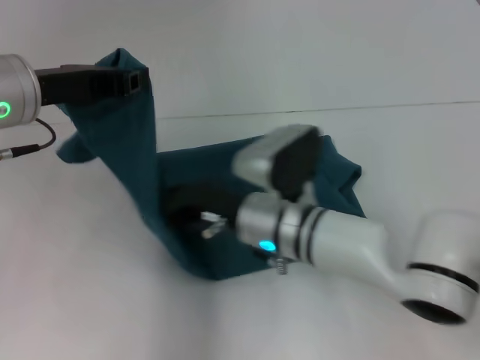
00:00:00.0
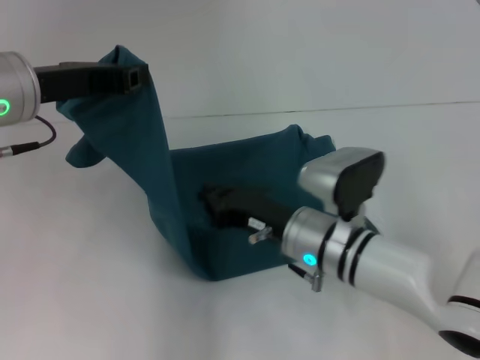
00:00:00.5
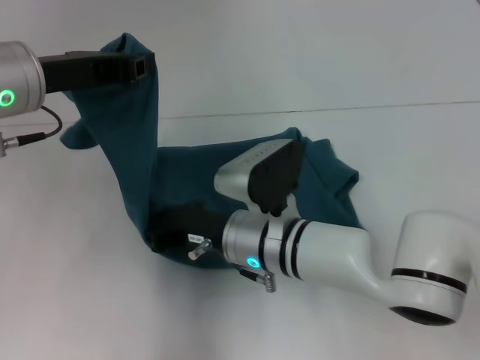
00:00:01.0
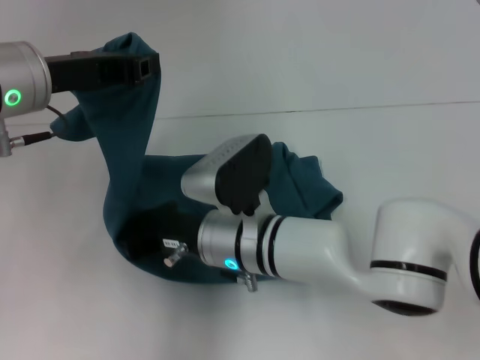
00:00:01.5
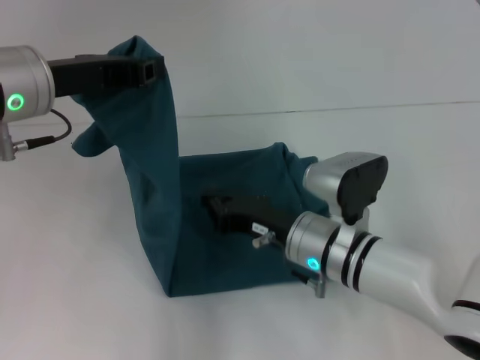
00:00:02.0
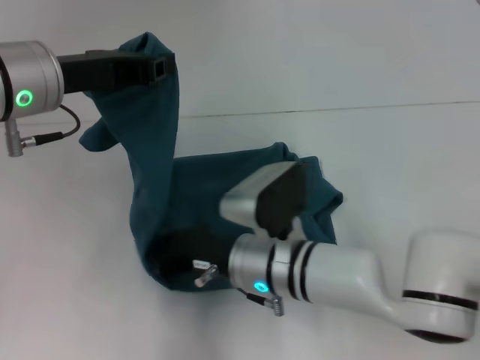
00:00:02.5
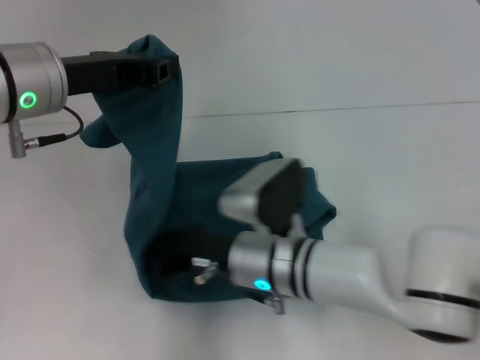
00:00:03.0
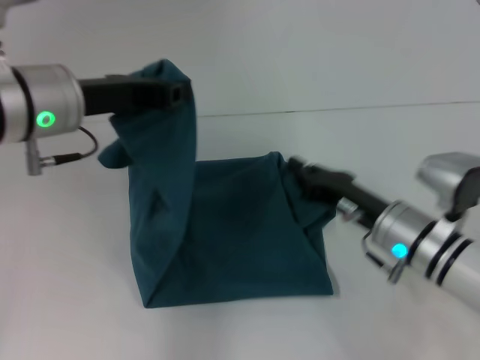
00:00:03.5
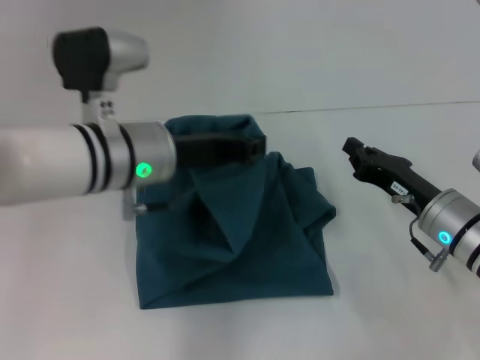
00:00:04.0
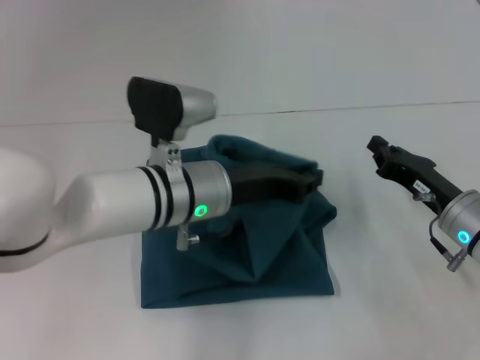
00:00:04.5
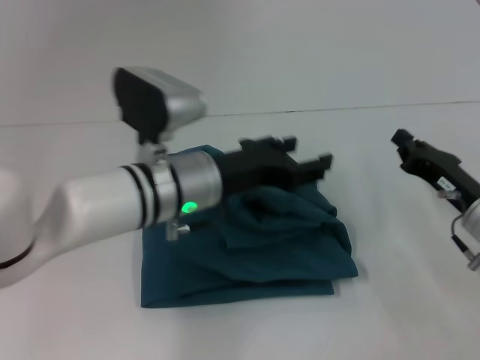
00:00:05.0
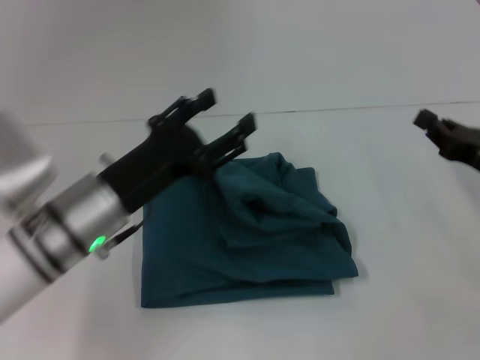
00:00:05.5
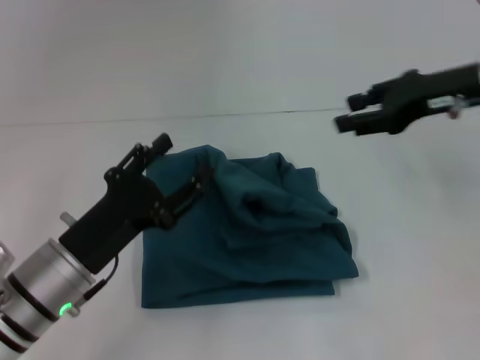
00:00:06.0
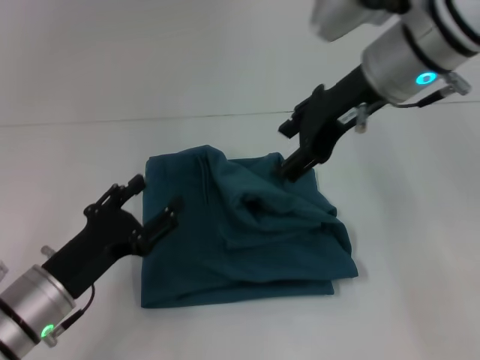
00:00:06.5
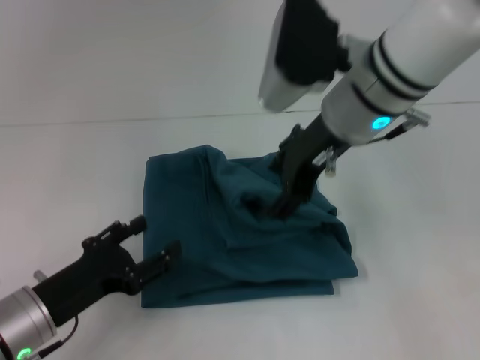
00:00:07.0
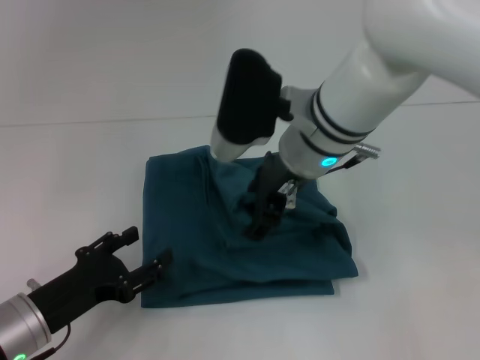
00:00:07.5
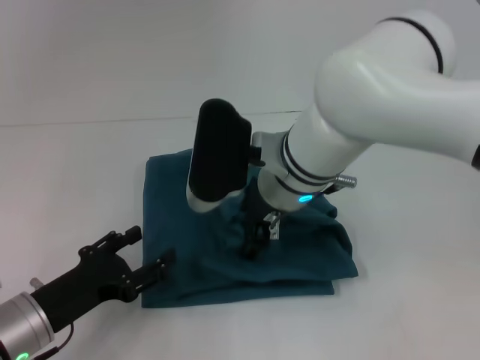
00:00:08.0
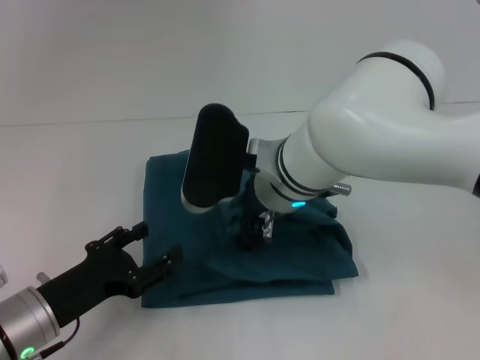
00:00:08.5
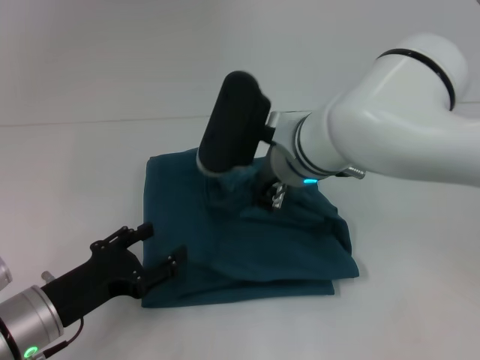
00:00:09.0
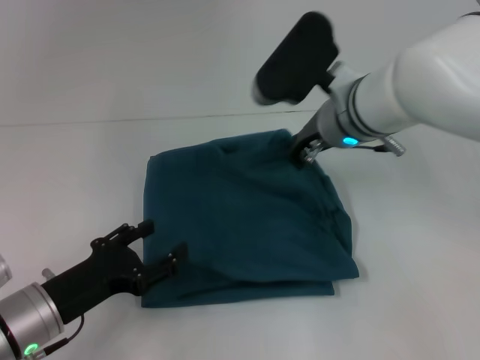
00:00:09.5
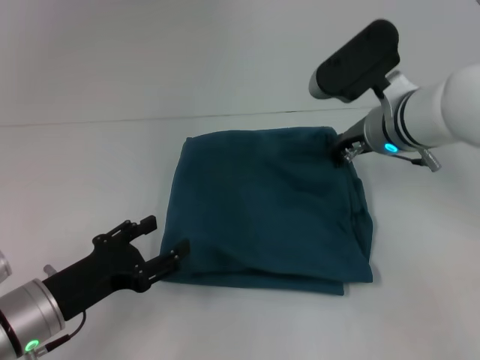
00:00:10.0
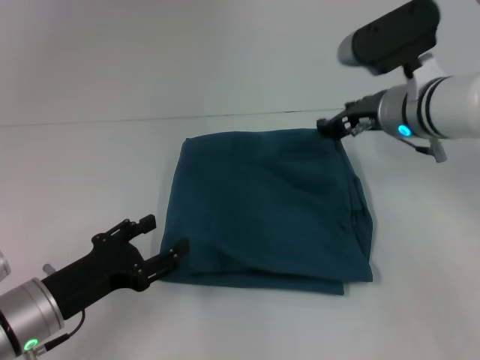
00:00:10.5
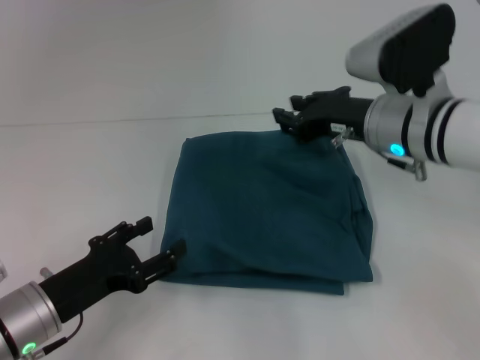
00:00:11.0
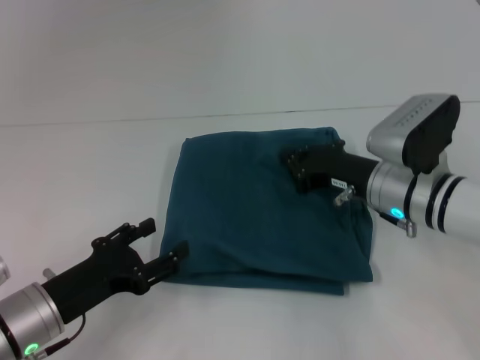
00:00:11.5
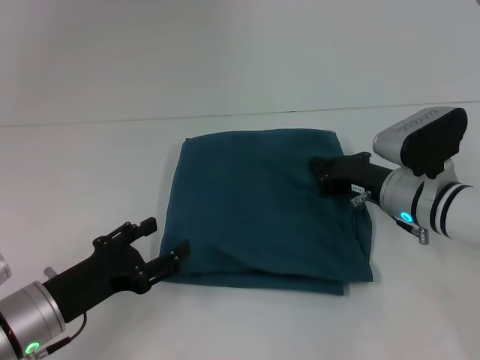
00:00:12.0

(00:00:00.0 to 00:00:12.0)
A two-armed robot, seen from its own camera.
Step, 00:00:00.5 - 00:00:05.5: Fold the clothes to the left.
00:00:00.0 - 00:00:02.0: The right gripper moves left and right over roughly 10 cm, changing direction 2 times.
00:00:02.0 - 00:00:04.0: The left gripper moves to the right and downward, some 10 cm, while the right gripper moves to the right, about 15 cm.
00:00:04.0 - 00:00:06.0: The right gripper travels upward by approximately 20 cm. The left gripper moves downward, backward and to the left, approximately 15 cm, and opens its fingers.
00:00:06.0 - 00:00:08.0: The right gripper moves to the left, about 20 cm, and opens its fingers; the left gripper moves some 5 cm.
00:00:08.0 - 00:00:10.0: The right gripper moves to the right, some 10 cm, and closes.
00:00:10.0 - 00:00:12.0: The right gripper heads downward, covering some 10 cm, and opens, then closes again.

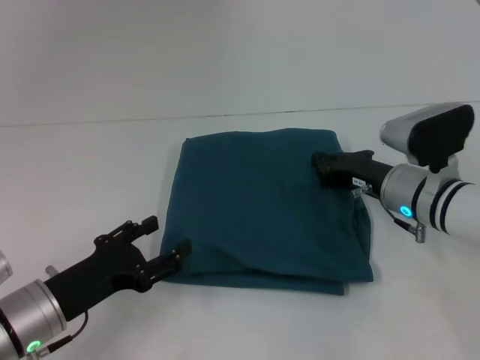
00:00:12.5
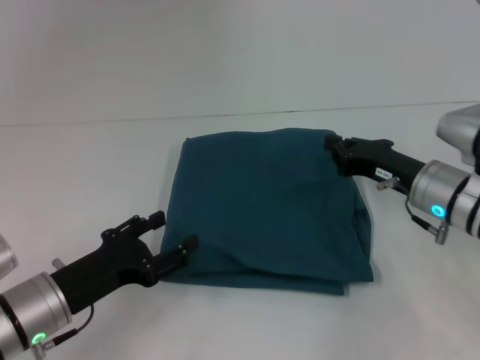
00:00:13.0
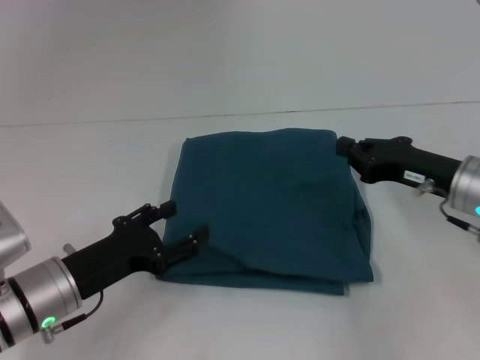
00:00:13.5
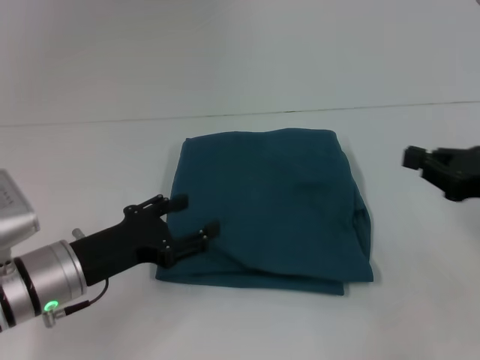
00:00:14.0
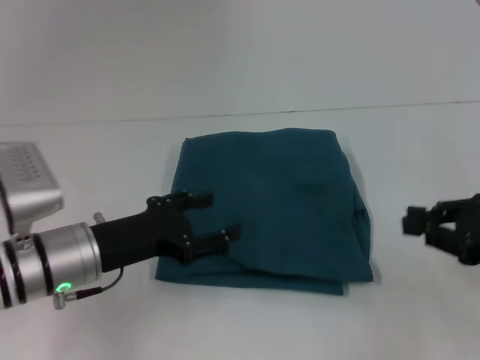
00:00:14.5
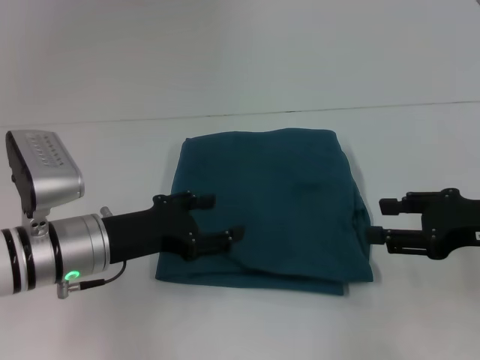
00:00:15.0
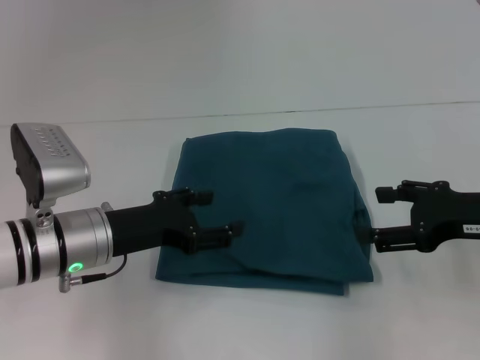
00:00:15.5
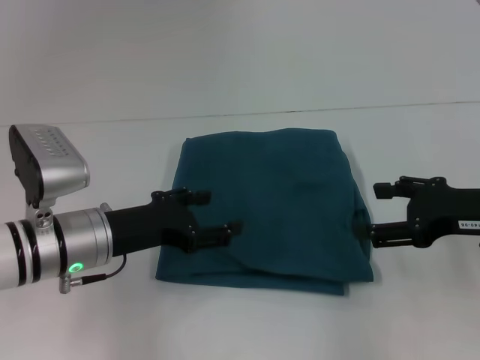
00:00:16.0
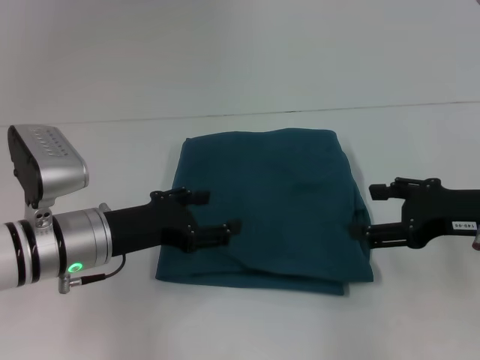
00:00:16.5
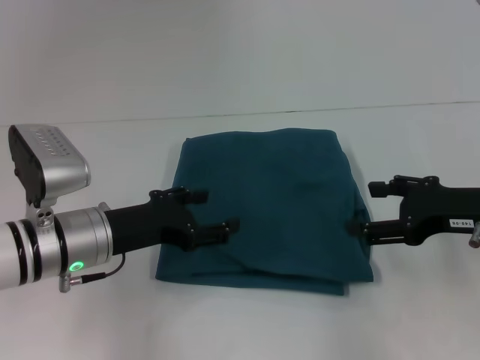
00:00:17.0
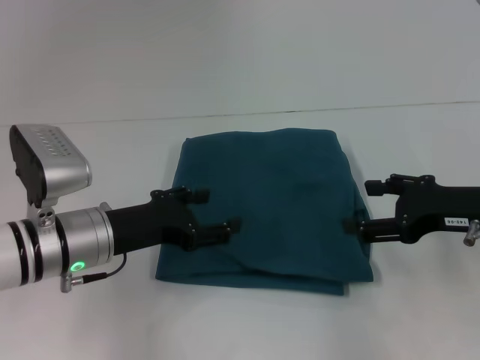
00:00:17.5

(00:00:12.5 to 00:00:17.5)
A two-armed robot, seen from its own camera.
00:00:12.5 - 00:00:15.0: The right gripper is displaced backward, to the right and upward by some 15 cm, and opens its fingers; the left gripper shifts roughly 10 cm forward and upward.
00:00:15.0 - 00:00:17.5: The right gripper opens up.
